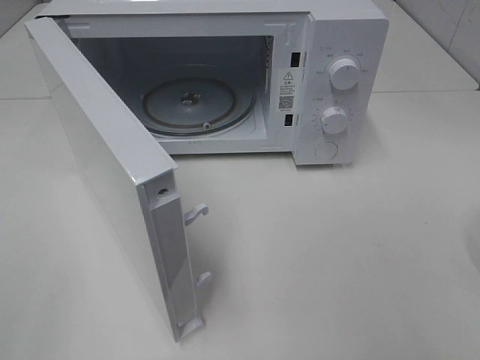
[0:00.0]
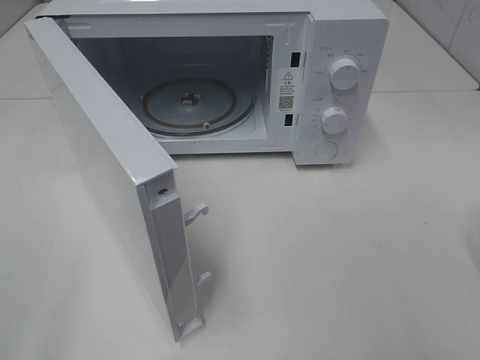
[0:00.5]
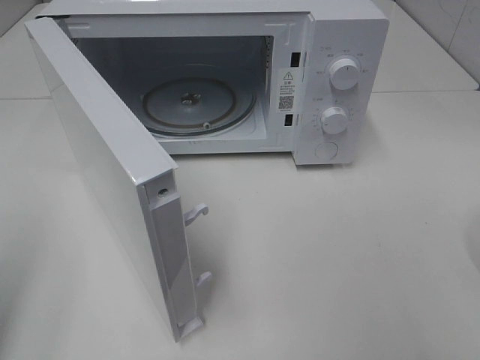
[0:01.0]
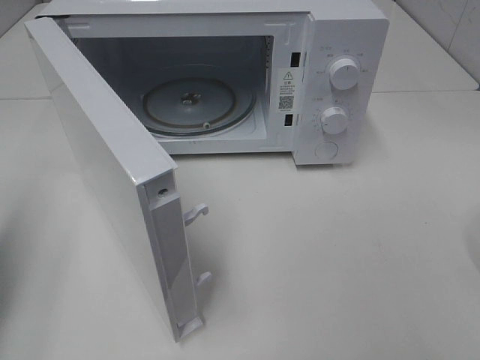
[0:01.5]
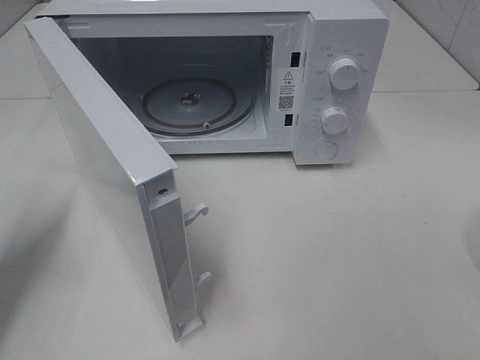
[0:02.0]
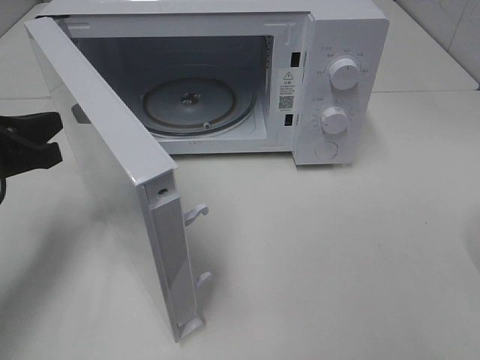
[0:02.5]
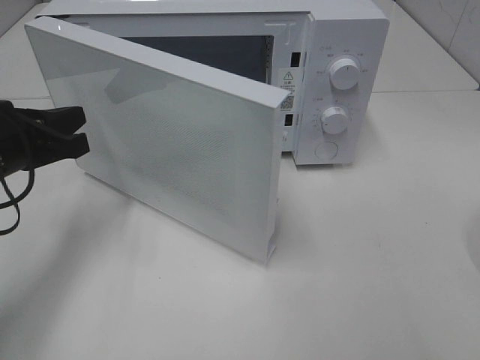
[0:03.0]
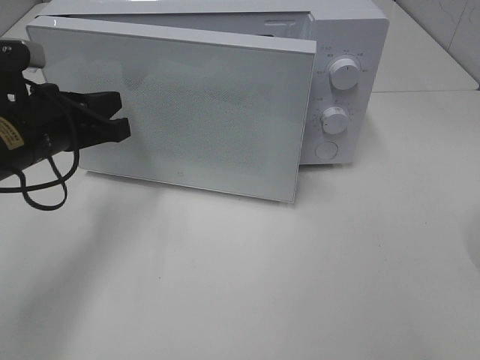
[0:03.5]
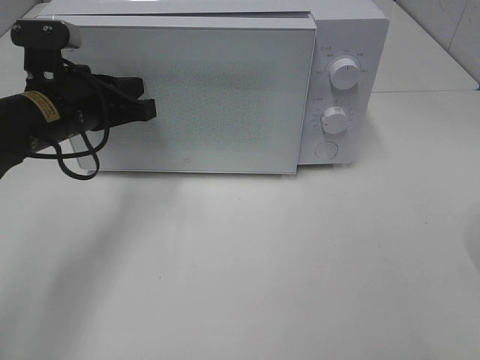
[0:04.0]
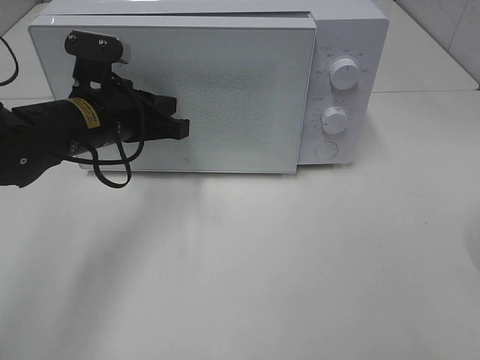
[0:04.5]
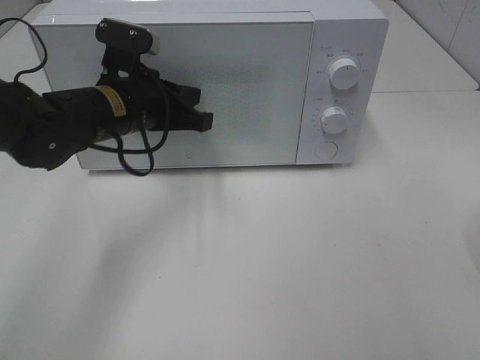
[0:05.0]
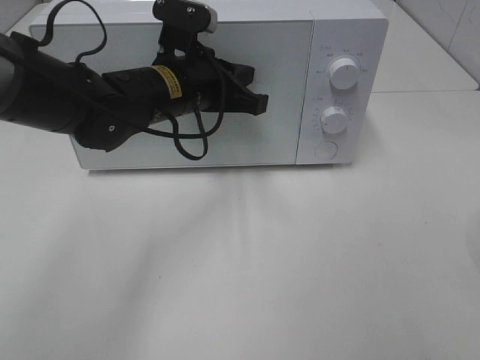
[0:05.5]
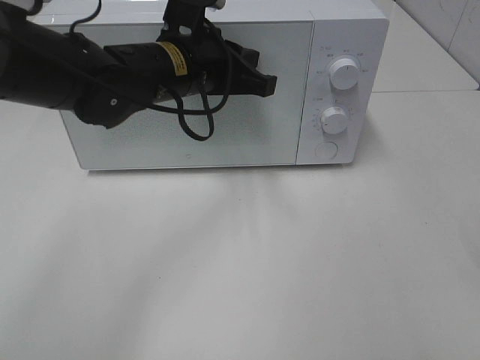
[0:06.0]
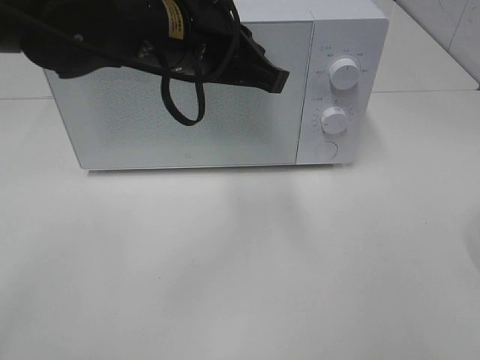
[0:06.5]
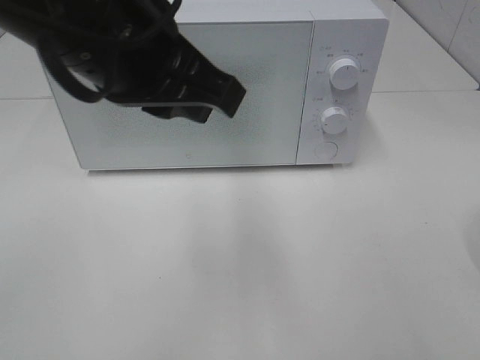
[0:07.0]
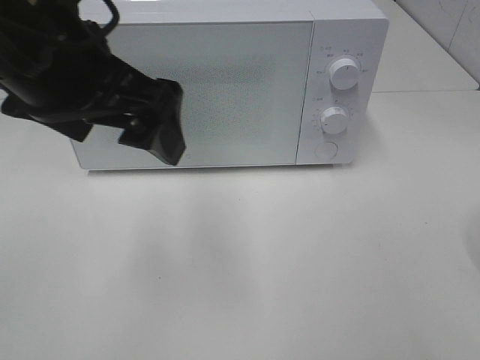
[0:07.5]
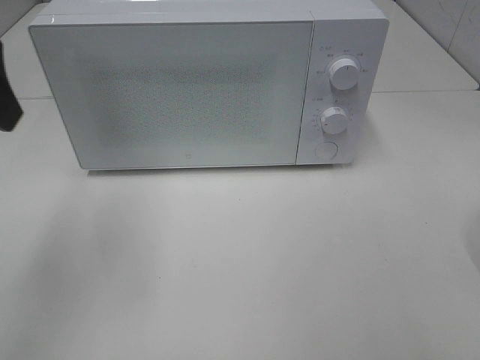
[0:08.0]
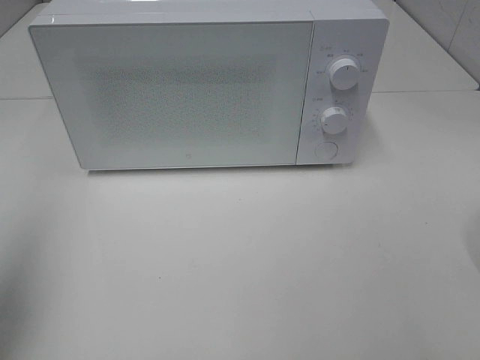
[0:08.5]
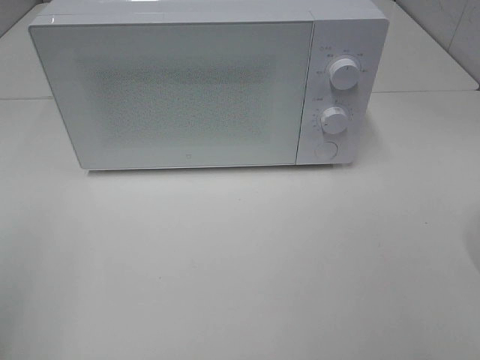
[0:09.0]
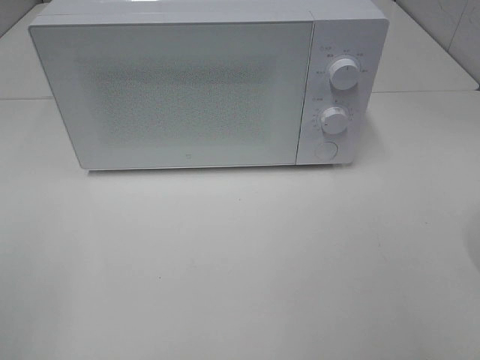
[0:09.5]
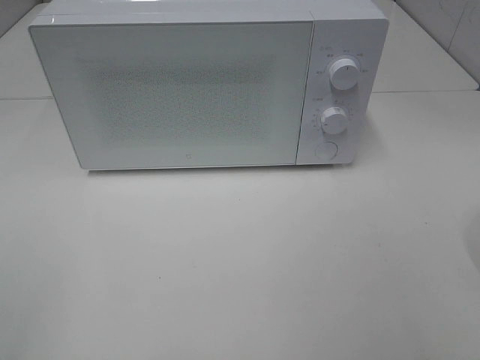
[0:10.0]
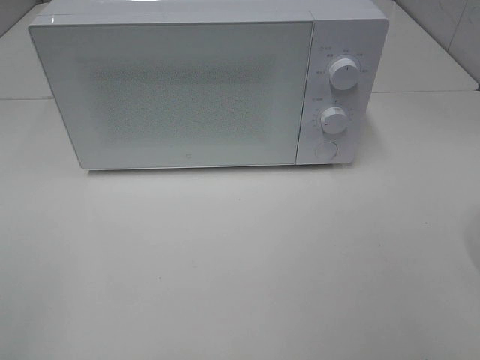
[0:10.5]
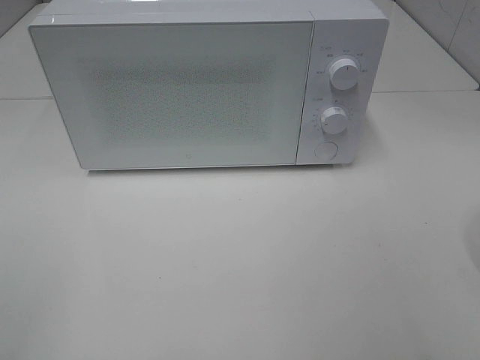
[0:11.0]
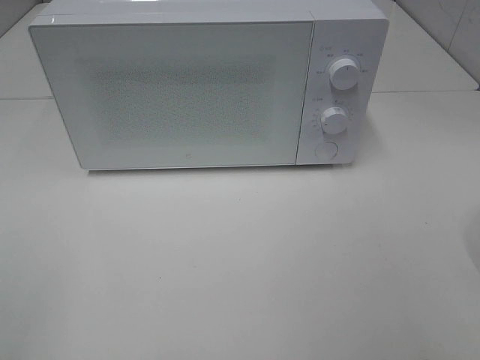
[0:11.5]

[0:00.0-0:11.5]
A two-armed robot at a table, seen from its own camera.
Task of the whole recording: Heat the burger.
Step, 0:00.0 to 0:05.0: Left hand: close the microwave door.
0:00.0 to 0:02.0: The left gripper travels forward and downward by approximately 25 cm, and closes its fingers.
0:02.0 to 0:04.0: The left gripper is displaced to the right and forward by some 15 cm.
0:04.0 to 0:06.0: The left gripper goes some 15 cm to the right.
0:06.0 to 0:07.5: The left gripper shifts some 15 cm backward, upward and to the left, and opens.
0:07.5 to 0:09.5: The left gripper travels backward and to the left by roughly 30 cm.

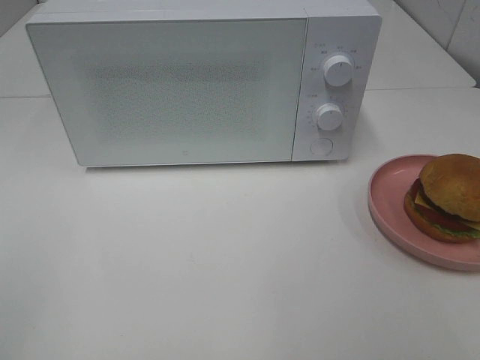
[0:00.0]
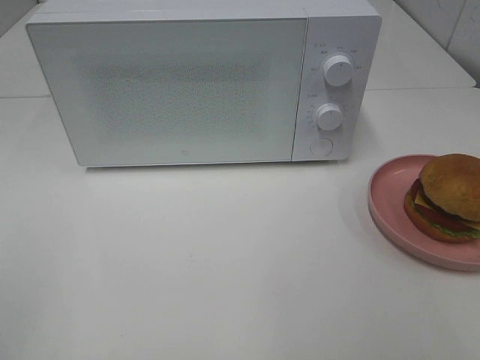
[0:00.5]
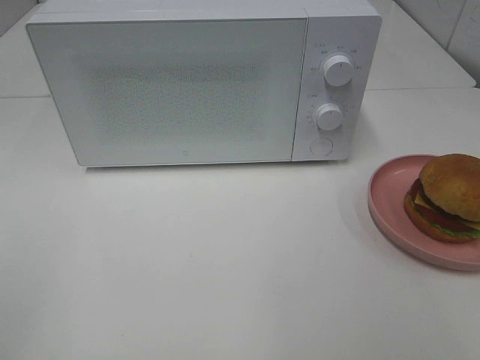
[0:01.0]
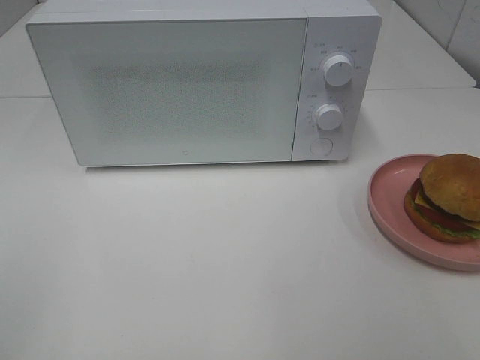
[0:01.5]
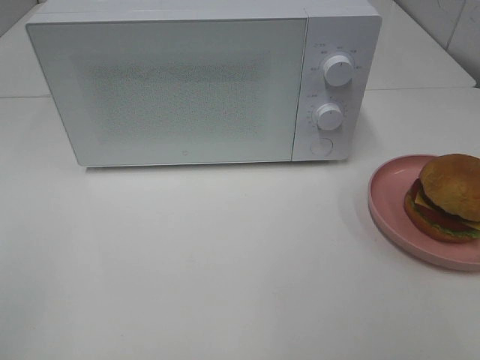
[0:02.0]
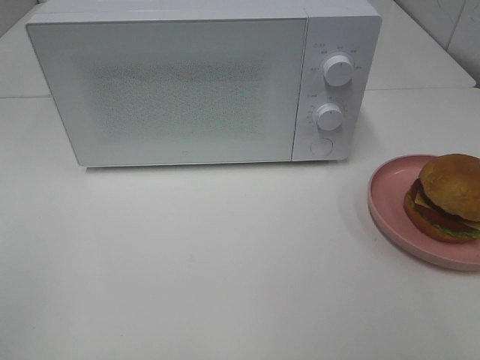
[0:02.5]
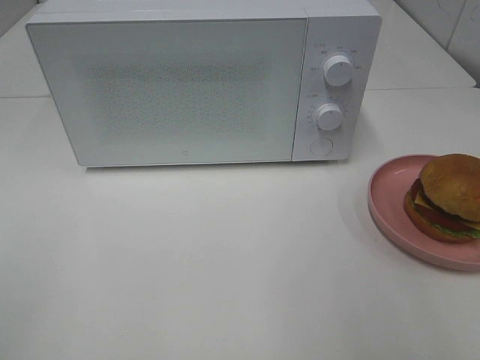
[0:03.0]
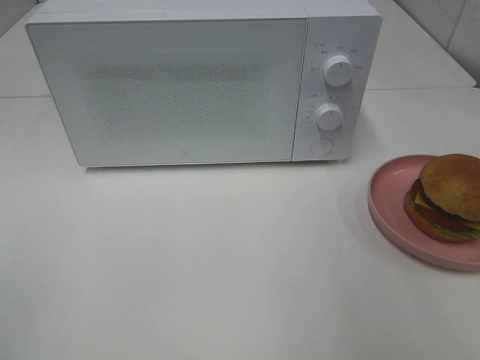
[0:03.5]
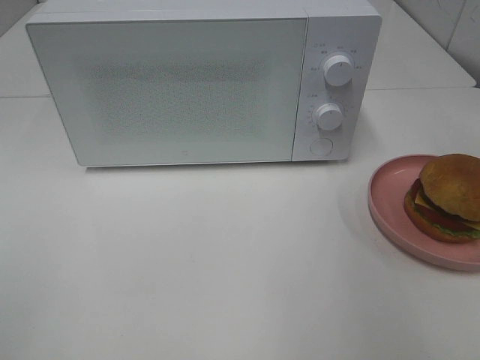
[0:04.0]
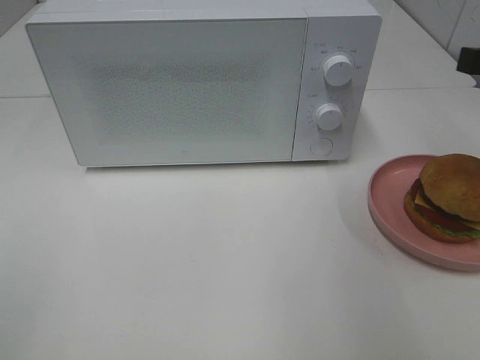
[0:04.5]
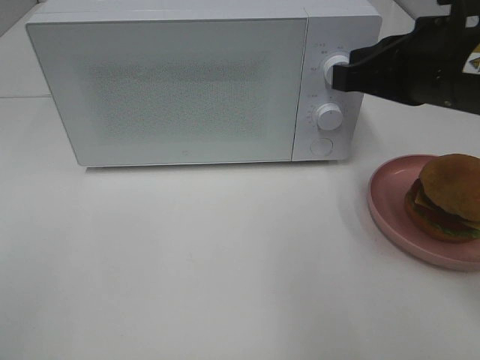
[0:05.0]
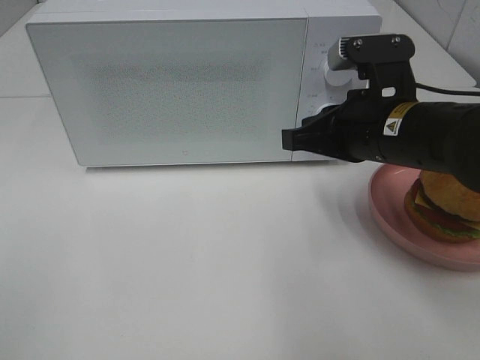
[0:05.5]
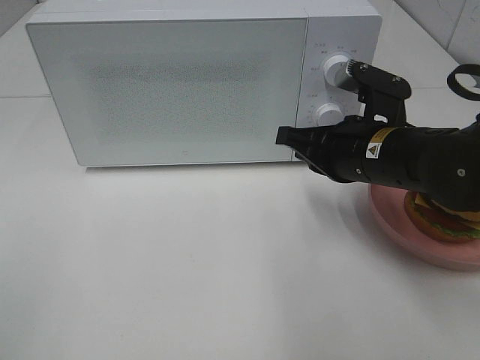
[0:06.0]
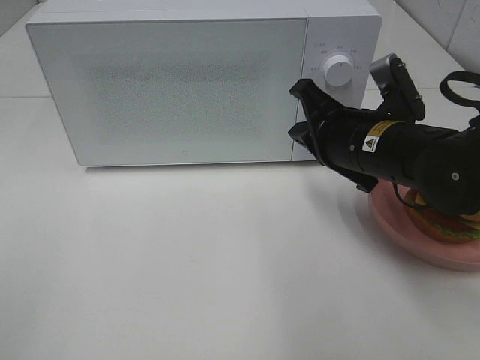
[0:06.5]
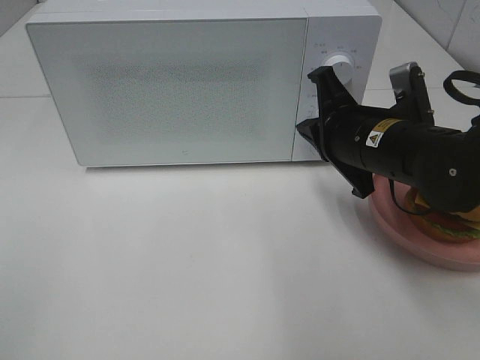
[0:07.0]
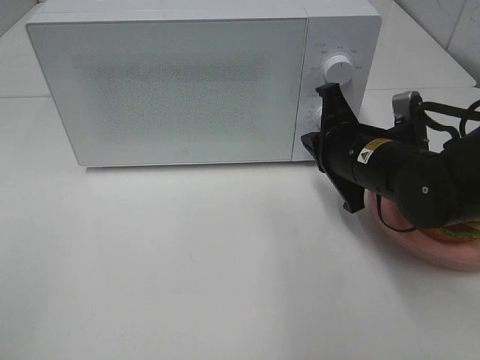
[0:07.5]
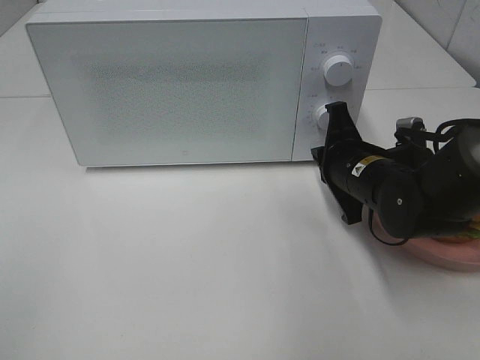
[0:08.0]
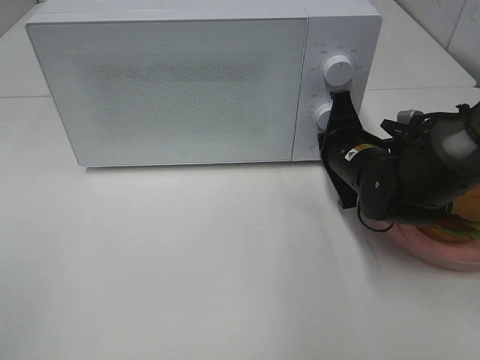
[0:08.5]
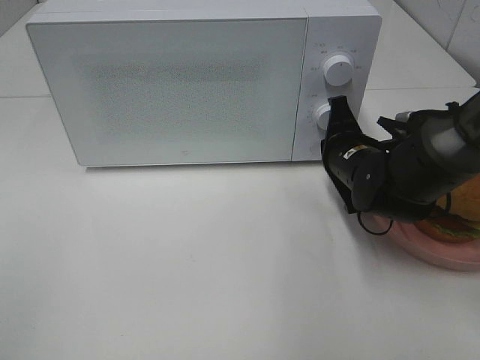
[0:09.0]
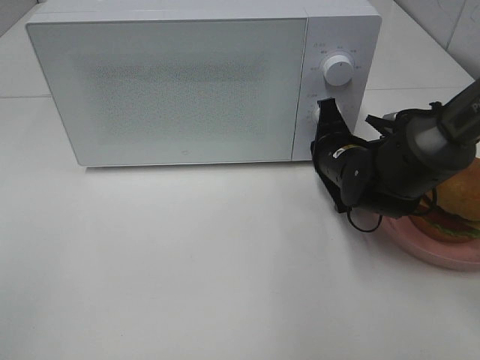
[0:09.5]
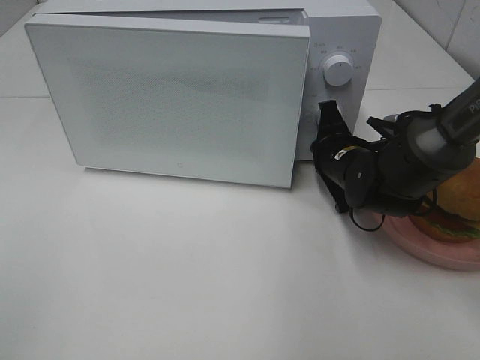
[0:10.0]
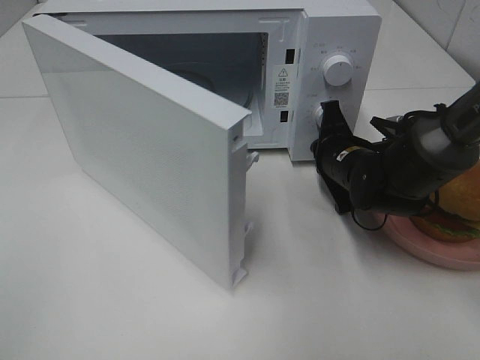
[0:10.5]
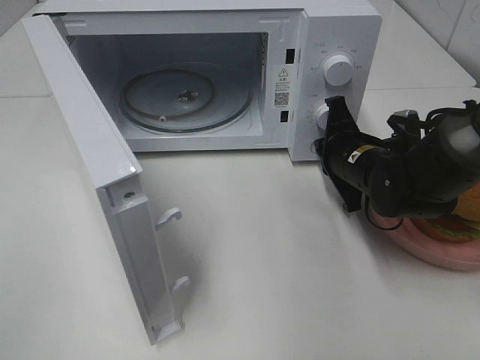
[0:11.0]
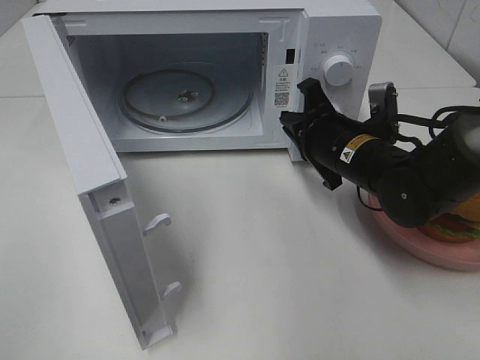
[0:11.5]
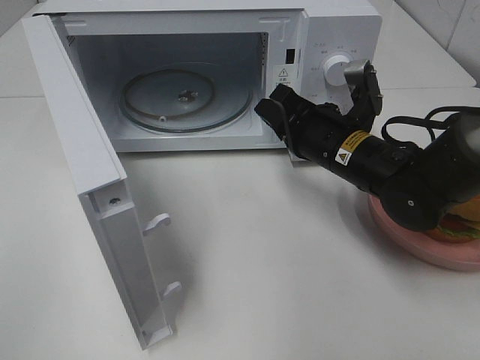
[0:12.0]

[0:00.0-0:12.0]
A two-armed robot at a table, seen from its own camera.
Task of the whole recording: Heat the burger.
Step, 0:00.0 to 0:11.0: Right hand: press the switch.
0:00.0 to 0:02.0: Both grippers stay put.
0:04.0 to 0:06.0: The right gripper shifts approximately 20 cm to the left, downward and forward, and closes.
0:06.0 to 0:08.0: The right gripper heads downward, covering approximately 5 cm.
0:08.0 to 0:10.0: The right gripper shifts by some 5 cm.
0:10.0 to 0:12.0: The right gripper changes place by roughly 5 cm.

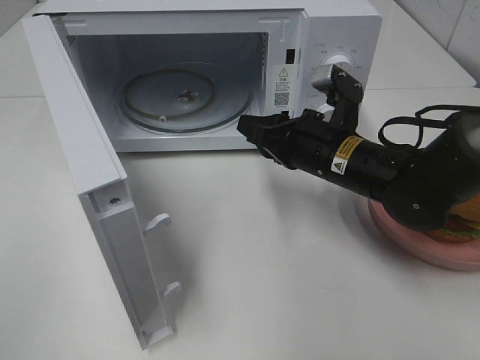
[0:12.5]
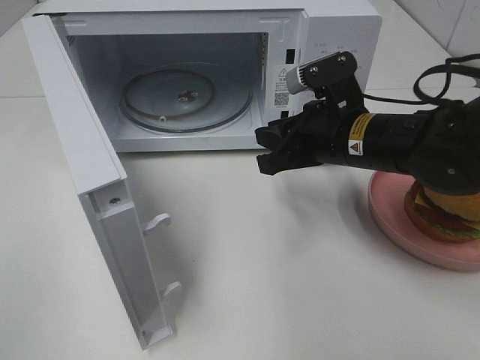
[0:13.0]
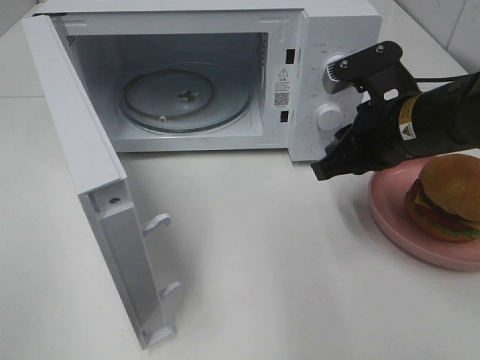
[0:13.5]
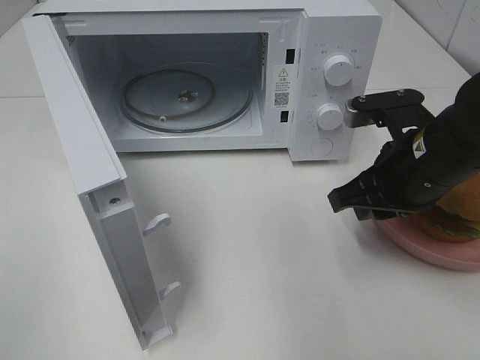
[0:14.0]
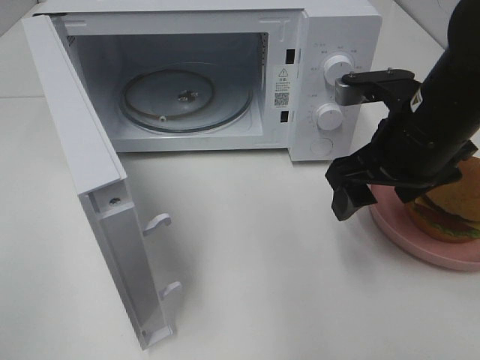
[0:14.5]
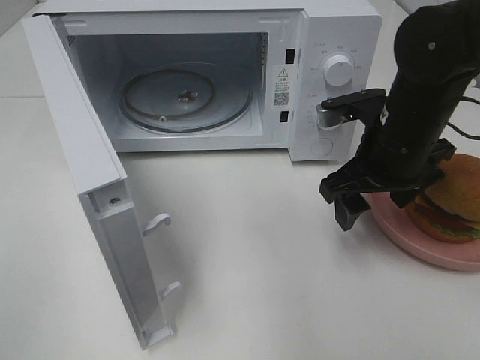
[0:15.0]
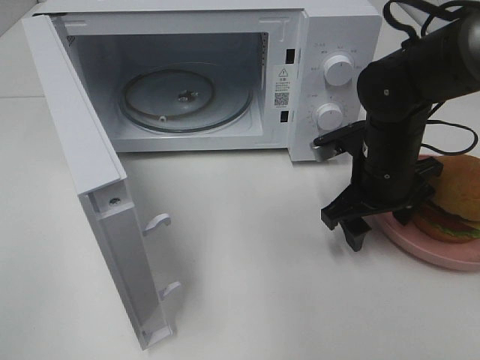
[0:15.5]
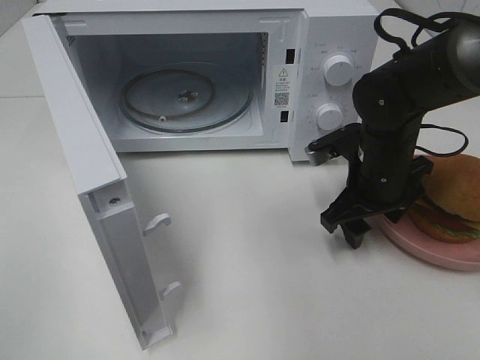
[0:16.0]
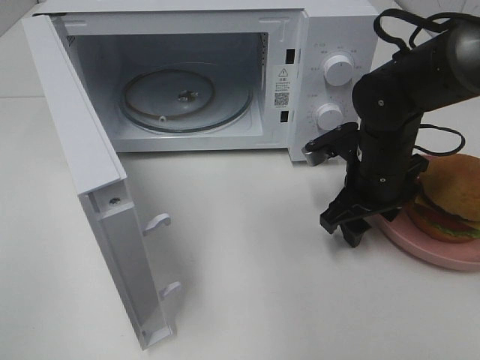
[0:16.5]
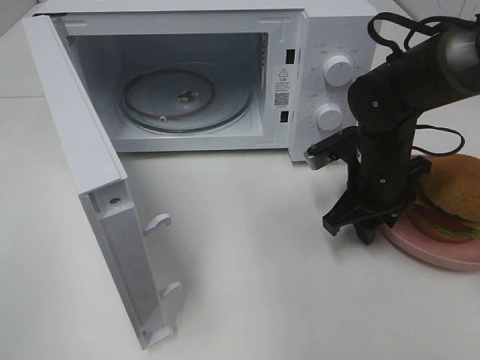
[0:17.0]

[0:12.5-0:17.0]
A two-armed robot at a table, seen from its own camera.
Task of the whole recording: Heat the burger.
0:12.5 to 0:14.5: The right gripper heads upward and to the right, covering about 10 cm, and opens its fingers.
0:14.5 to 0:17.0: The right gripper travels downward and forward by about 10 cm, and closes its fingers.
